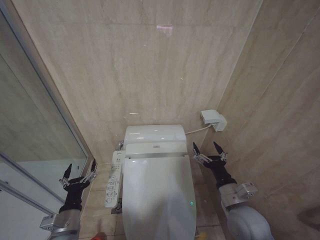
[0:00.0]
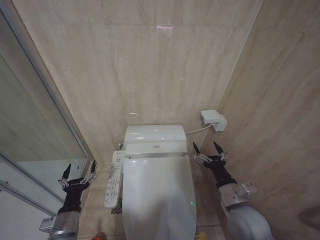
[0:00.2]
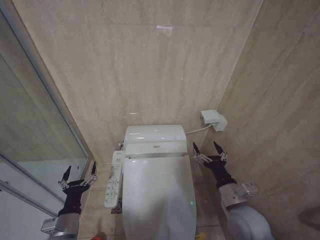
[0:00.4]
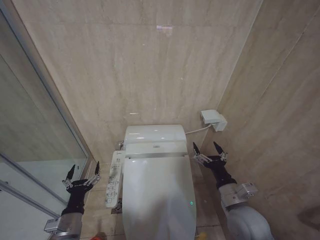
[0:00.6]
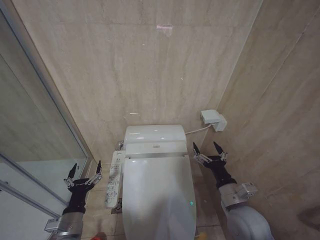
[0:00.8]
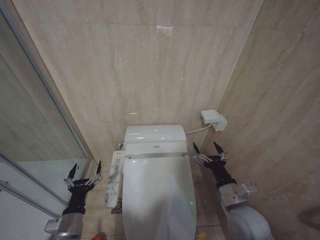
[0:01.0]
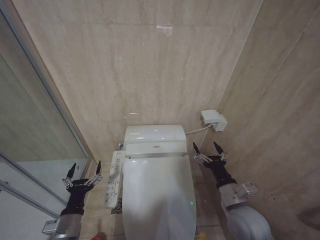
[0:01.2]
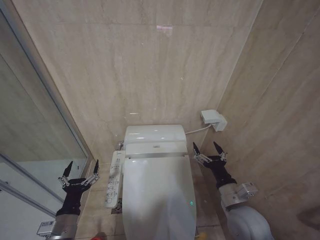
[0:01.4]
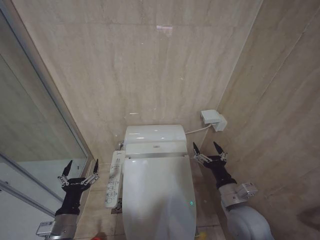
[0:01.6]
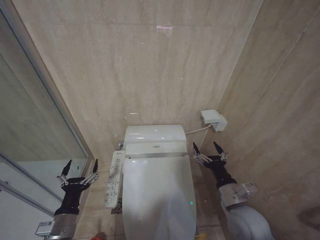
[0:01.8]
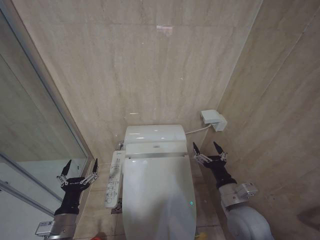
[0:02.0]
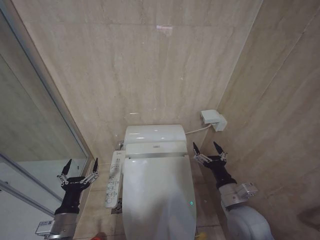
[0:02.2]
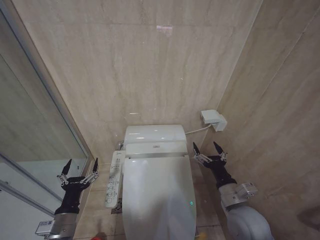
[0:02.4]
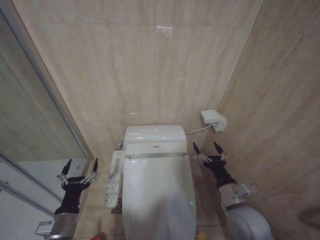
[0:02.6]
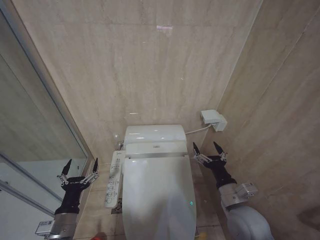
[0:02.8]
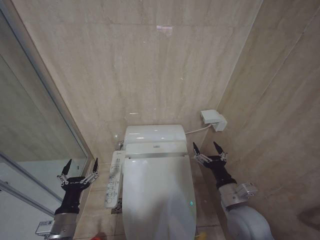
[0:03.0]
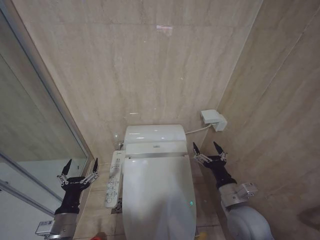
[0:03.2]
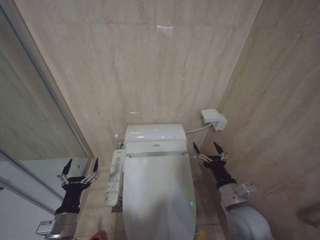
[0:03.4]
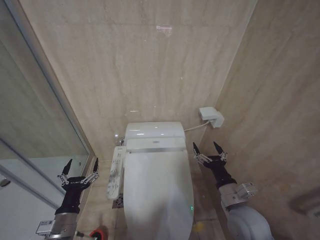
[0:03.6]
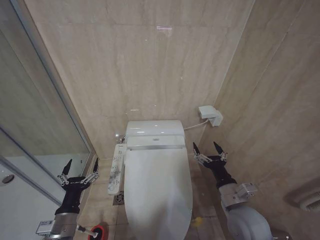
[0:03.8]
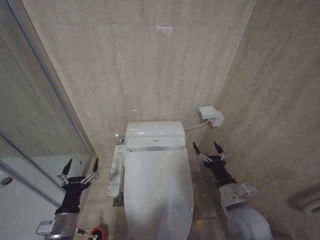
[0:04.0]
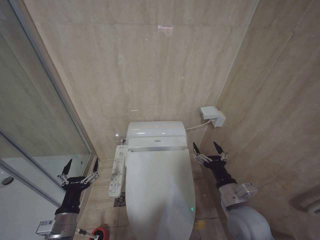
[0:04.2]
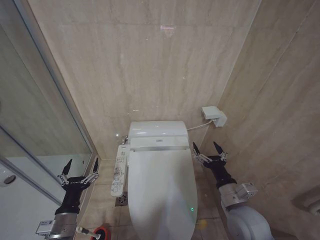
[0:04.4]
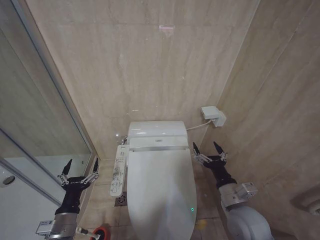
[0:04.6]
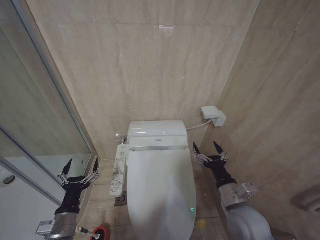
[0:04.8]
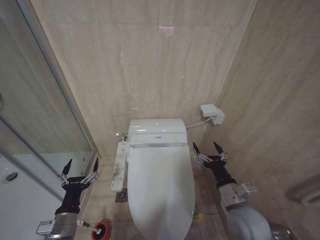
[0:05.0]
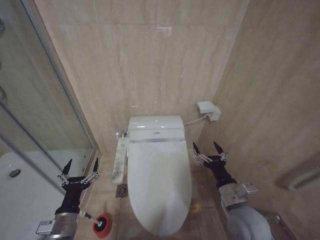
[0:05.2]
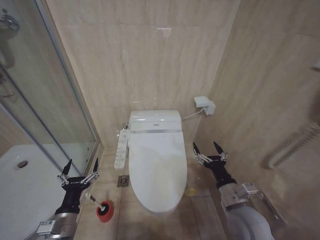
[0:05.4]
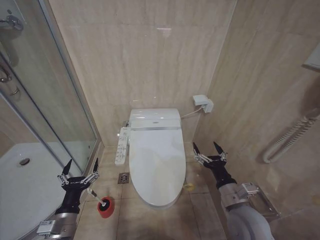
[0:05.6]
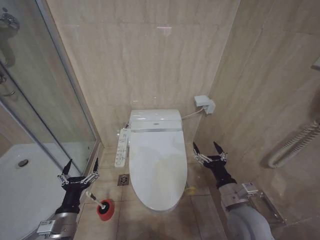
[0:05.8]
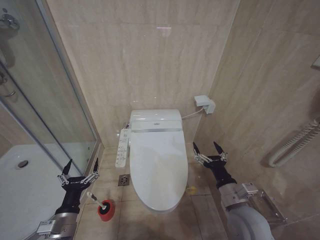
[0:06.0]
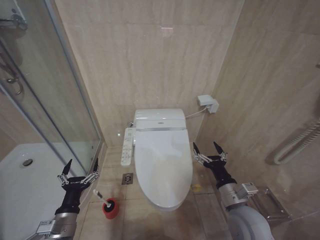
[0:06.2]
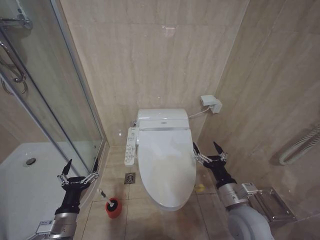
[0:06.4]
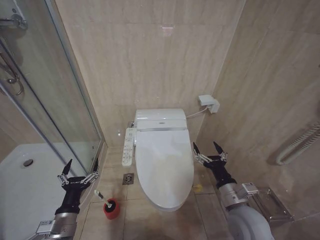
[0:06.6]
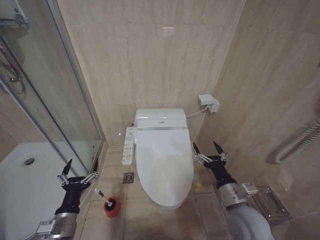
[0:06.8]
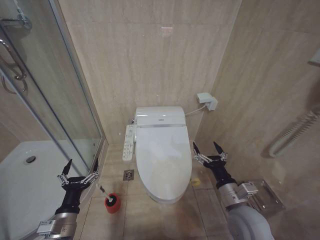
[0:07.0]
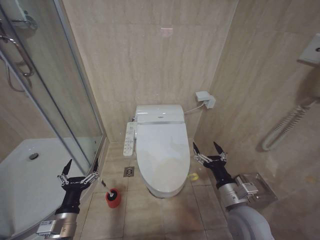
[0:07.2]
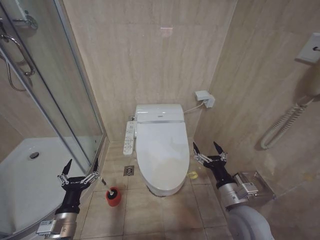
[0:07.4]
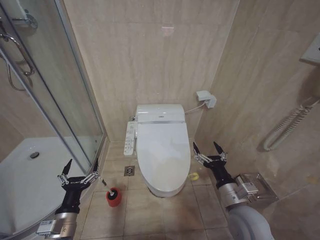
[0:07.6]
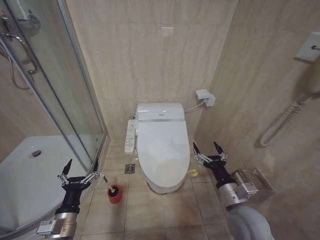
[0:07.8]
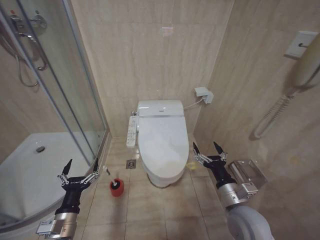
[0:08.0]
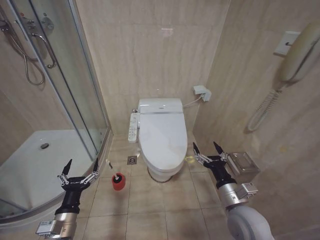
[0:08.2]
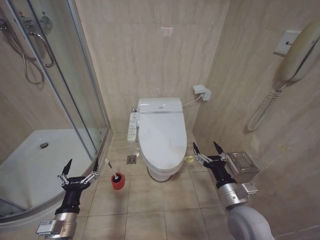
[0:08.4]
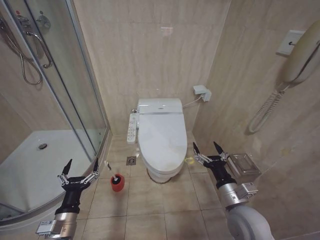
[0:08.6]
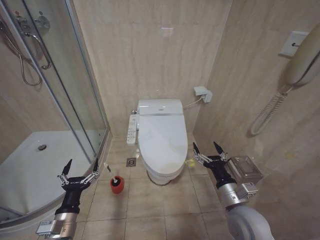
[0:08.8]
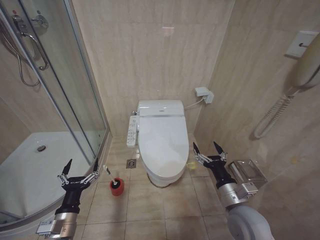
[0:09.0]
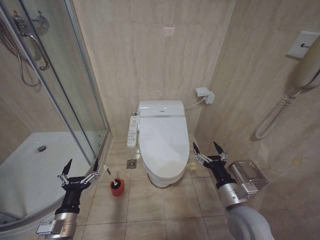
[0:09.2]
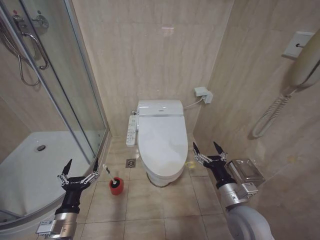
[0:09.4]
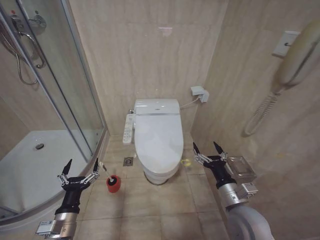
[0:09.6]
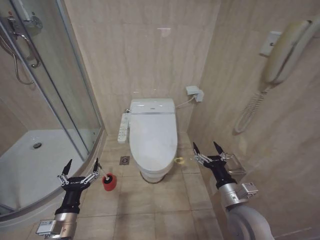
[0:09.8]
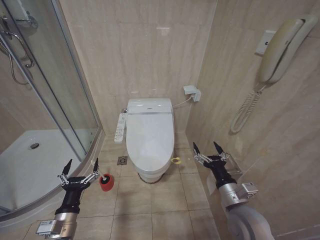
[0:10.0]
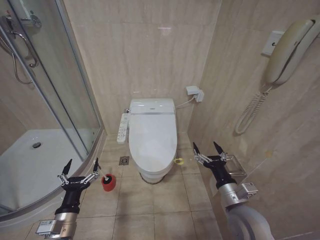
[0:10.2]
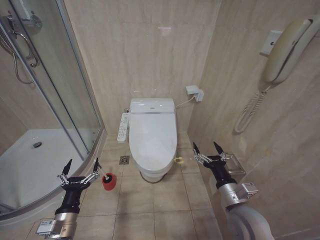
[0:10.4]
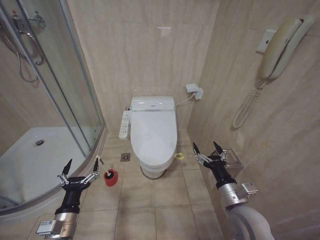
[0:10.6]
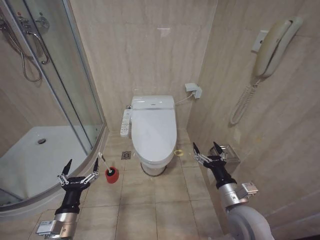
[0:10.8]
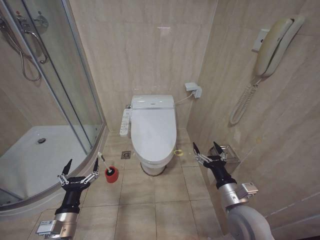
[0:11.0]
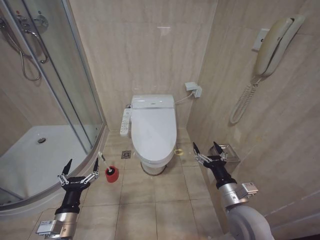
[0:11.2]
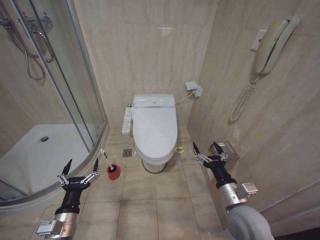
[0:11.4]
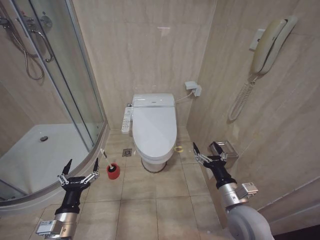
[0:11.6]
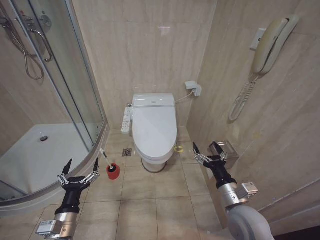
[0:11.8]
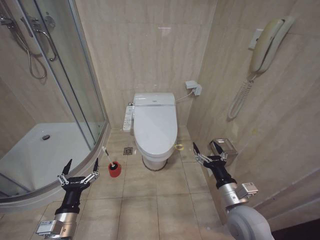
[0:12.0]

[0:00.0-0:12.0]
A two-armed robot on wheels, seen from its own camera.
Task of the whole recording: Open the toilet lid, clean the toilet bowl with a toilet brush, close the toilet lid, and flush.
0:00.0 to 0:01.6: There are only small adjustments of the grippers.
0:01.6 to 0:12.0: The two grippers keep their place.

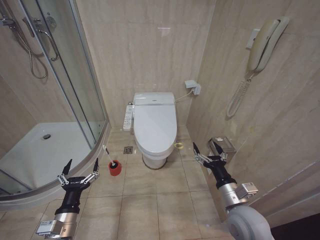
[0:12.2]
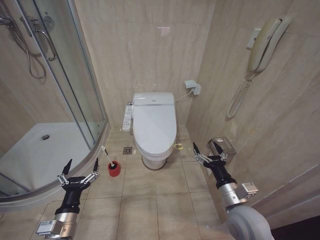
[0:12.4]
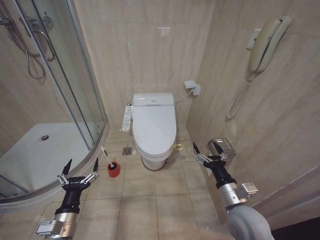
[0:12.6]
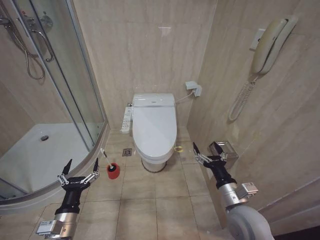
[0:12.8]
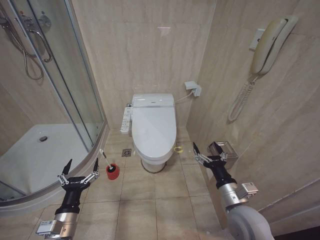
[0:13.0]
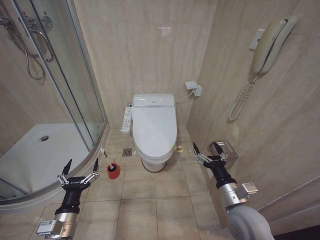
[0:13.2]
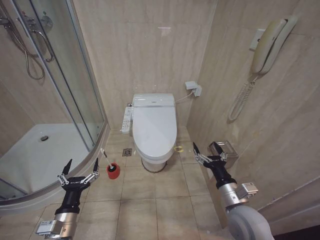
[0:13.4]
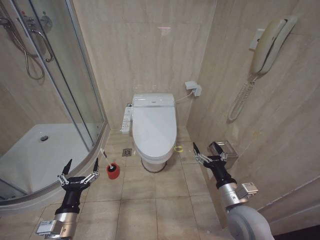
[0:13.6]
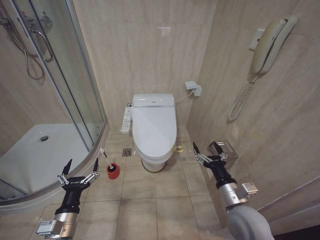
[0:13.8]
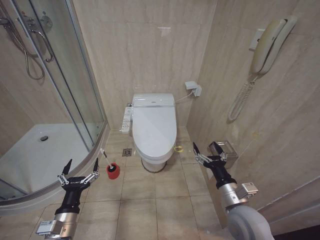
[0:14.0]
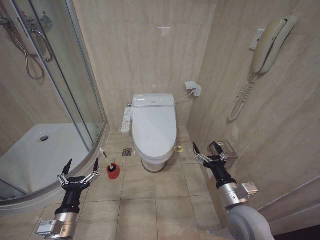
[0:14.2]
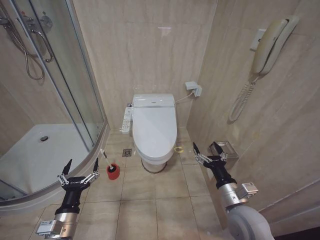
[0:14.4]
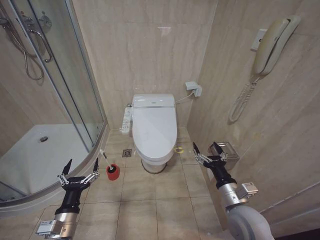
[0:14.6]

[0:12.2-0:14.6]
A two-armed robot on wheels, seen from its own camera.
Task of the whole recording: Open the toilet lid, clean the toilet bowl with a toilet brush, close the toilet lid, and flush.
0:12.2 to 0:14.6: Both grippers stay put.
